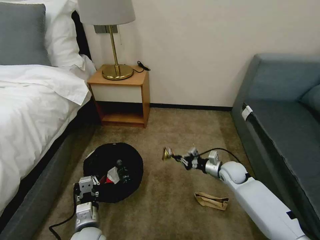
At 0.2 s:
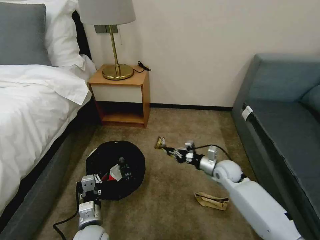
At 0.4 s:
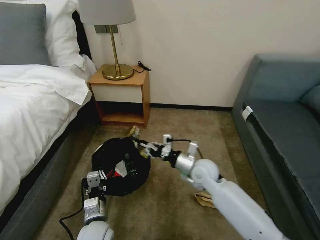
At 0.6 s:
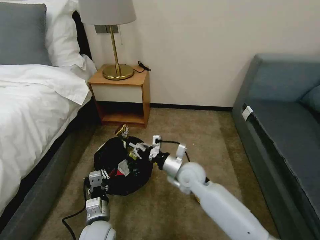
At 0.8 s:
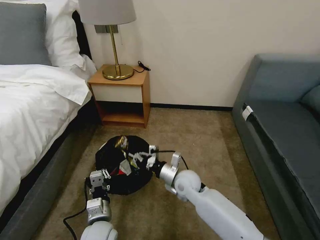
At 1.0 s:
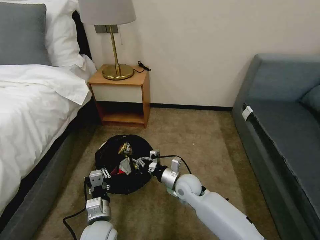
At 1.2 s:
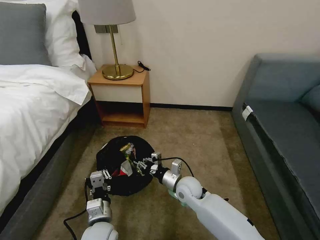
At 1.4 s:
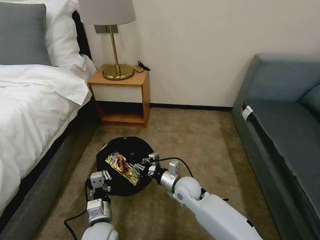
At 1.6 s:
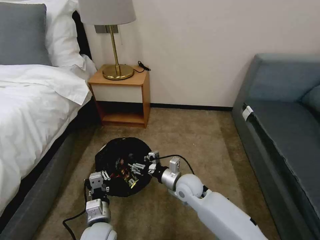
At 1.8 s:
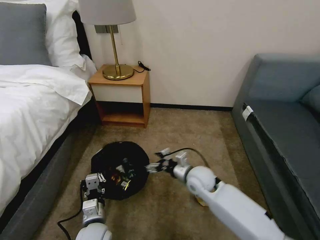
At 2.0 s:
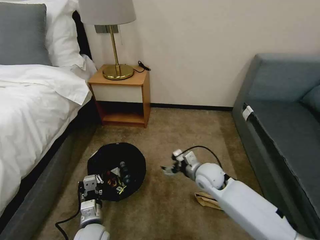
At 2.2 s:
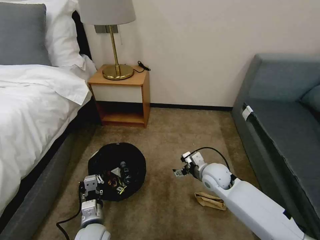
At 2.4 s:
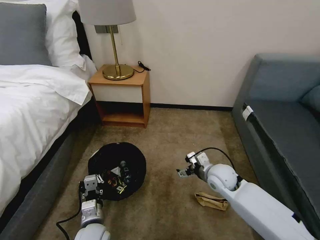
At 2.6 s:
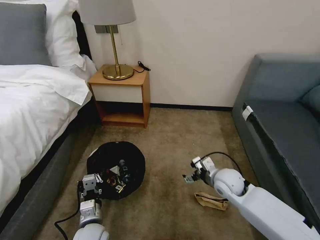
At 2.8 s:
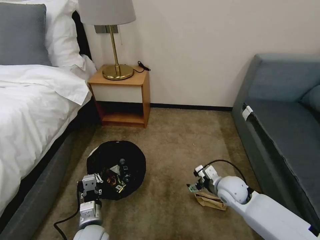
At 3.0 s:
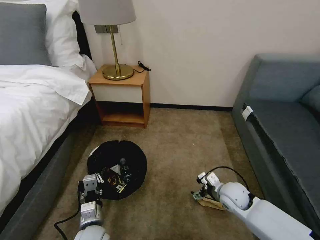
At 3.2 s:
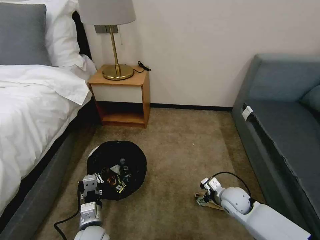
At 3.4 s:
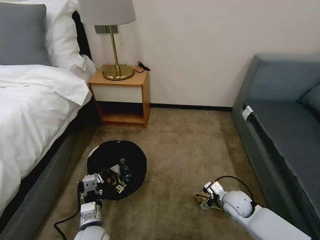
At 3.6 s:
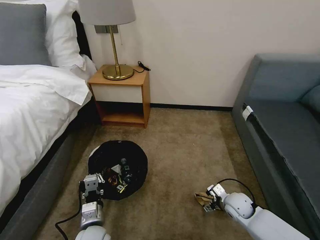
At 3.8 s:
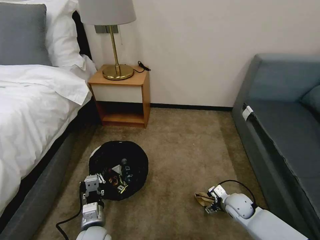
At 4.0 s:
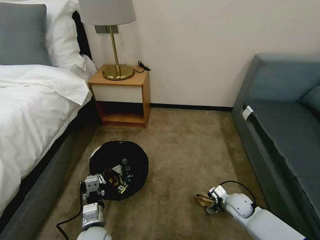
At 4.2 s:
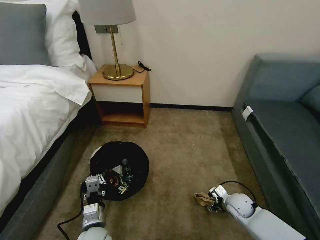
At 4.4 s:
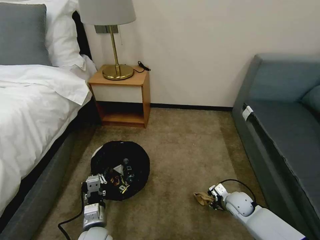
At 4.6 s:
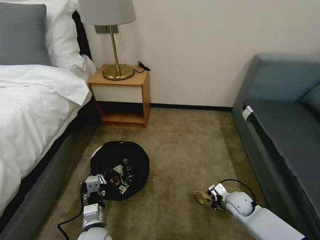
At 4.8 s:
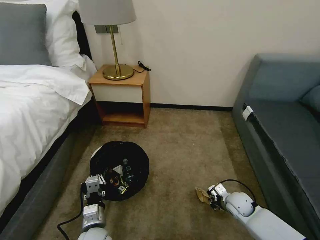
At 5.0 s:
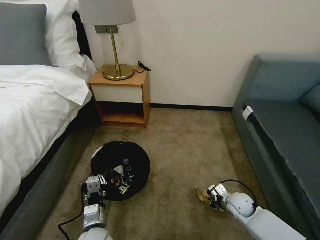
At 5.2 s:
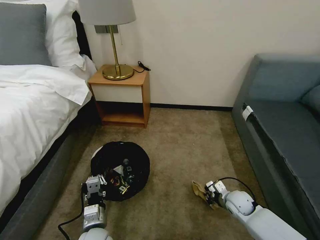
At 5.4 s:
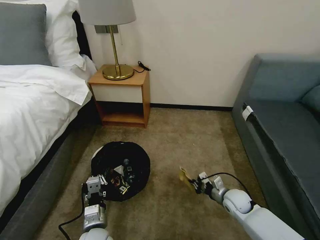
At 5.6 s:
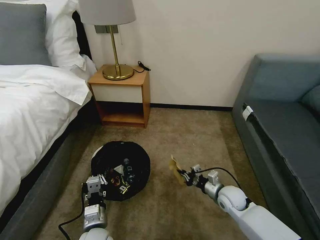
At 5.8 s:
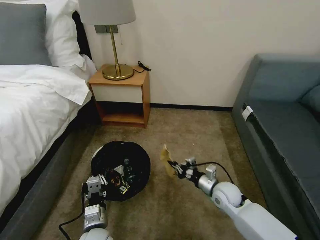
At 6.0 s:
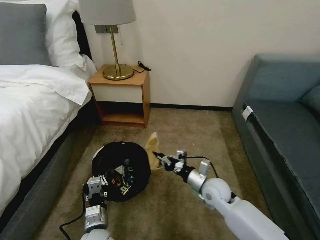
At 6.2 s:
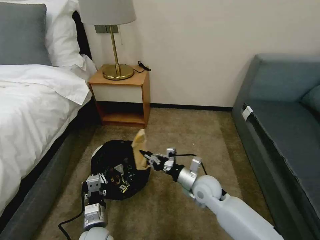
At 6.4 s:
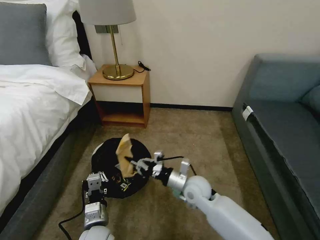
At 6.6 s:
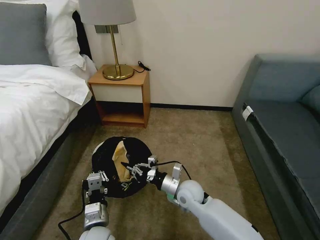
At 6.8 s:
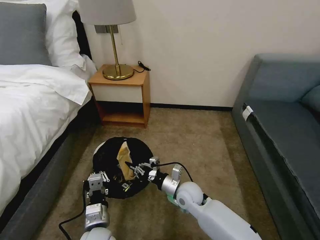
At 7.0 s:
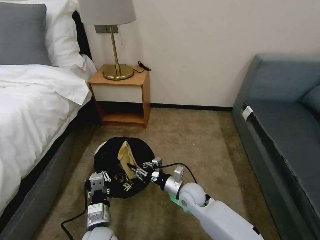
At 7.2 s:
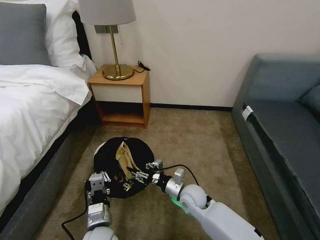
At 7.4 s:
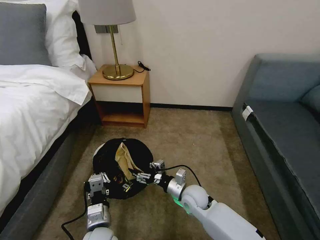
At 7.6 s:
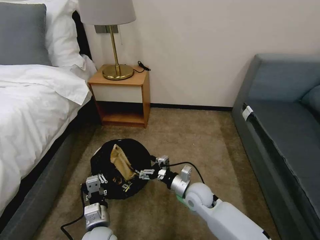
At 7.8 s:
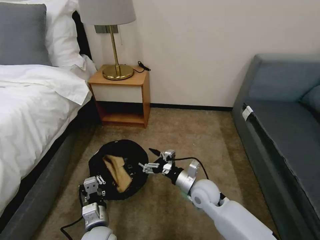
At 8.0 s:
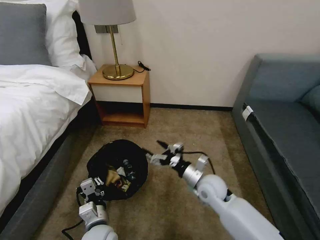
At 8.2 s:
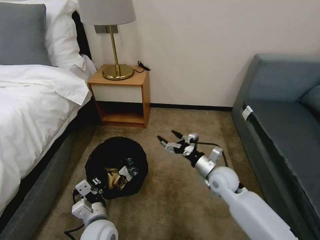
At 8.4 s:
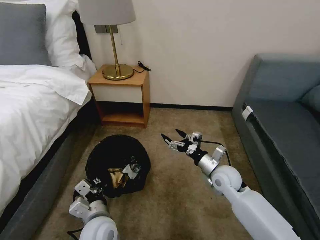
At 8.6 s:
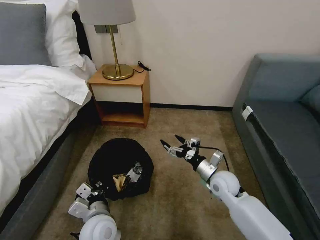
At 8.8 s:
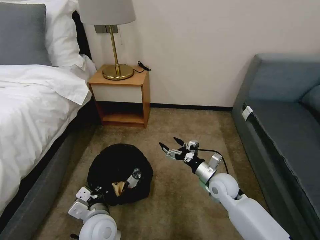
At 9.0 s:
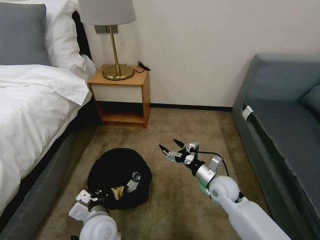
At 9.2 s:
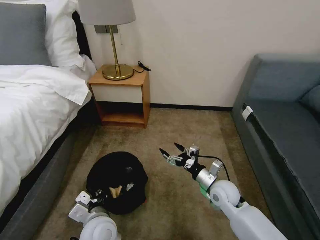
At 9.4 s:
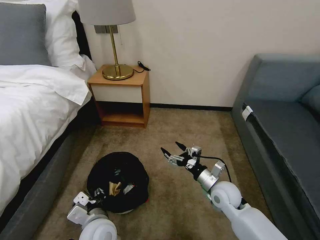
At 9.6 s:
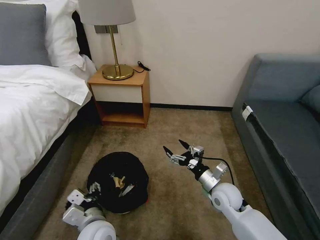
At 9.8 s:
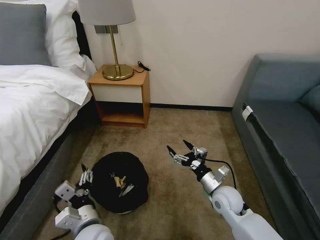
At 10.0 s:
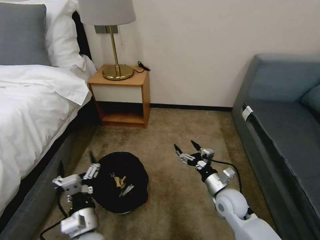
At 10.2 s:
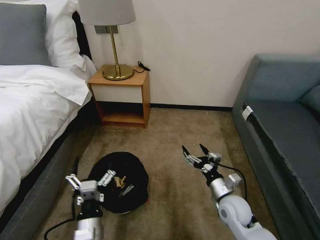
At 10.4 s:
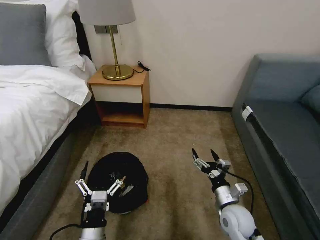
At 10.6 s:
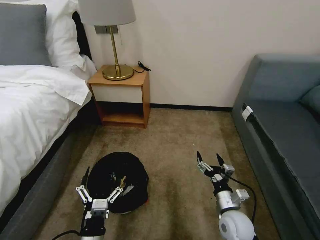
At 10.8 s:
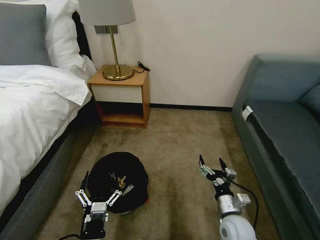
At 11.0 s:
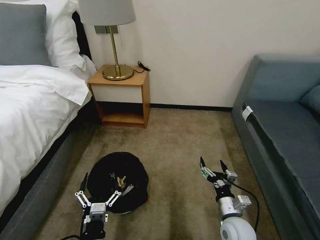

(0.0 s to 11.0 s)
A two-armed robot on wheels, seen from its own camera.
Task of the whole recording: Pick up the trash bin, then pick up the garbage on the floor and place it into the trash bin.
0.0 s - 1.6 s: The right gripper goes roughly 20 cm to the left, and opens its fingers.
1.6 s - 3.2 s: The right gripper travels to the right by some 20 cm, and opens.
3.2 s - 4.8 s: The right gripper heads downward, covering about 5 cm, and closes up.
4.8 s - 6.2 s: The right gripper travels to the left and upward by about 15 cm.
6.2 s - 7.8 s: The right gripper opens.
7.8 s - 9.4 s: The right gripper is displaced to the right by about 10 cm, while the left gripper shifts roughly 5 cm upward, and opens.
9.4 s - 11.0 s: The left gripper is displaced backward and downward by some 10 cm, and opens its fingers, while the right gripper shifts roughly 10 cm backward.

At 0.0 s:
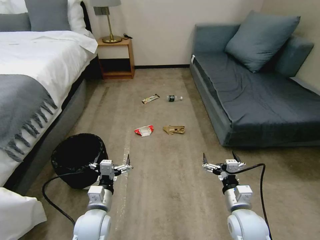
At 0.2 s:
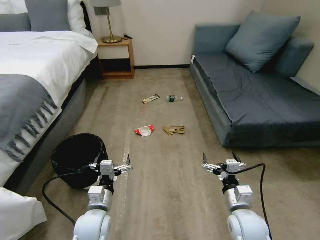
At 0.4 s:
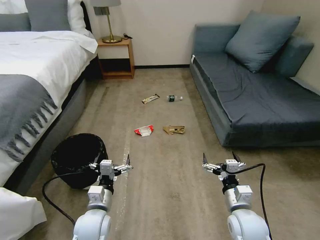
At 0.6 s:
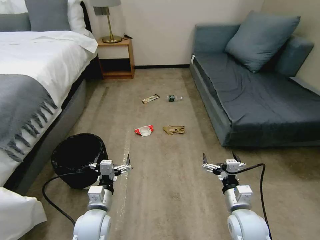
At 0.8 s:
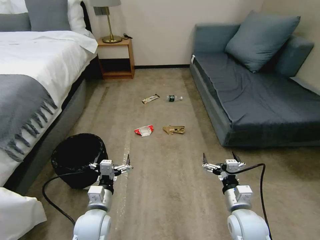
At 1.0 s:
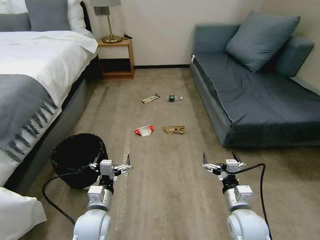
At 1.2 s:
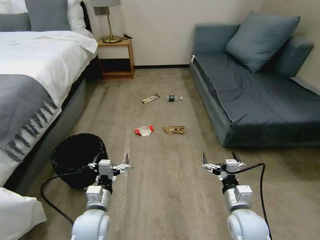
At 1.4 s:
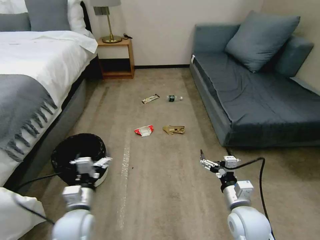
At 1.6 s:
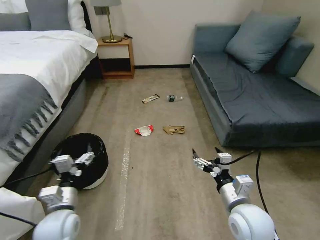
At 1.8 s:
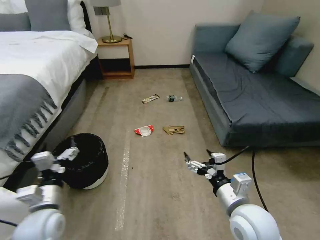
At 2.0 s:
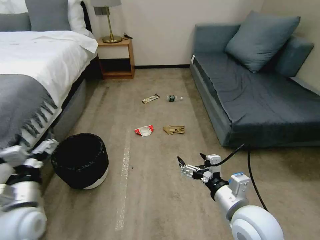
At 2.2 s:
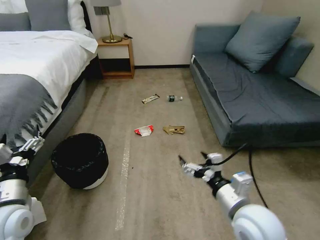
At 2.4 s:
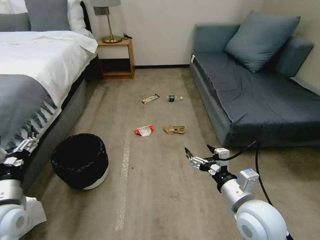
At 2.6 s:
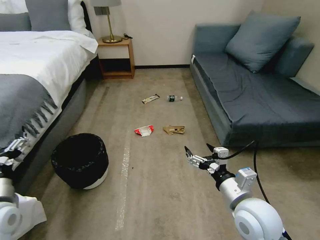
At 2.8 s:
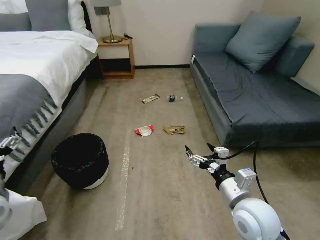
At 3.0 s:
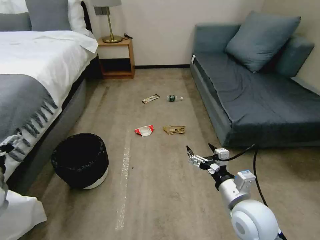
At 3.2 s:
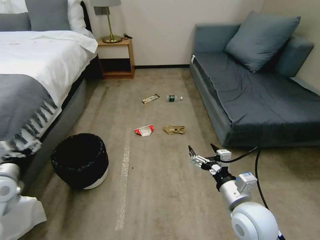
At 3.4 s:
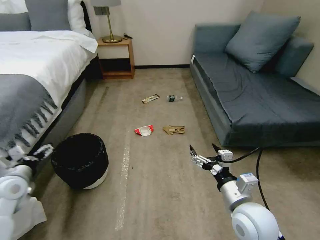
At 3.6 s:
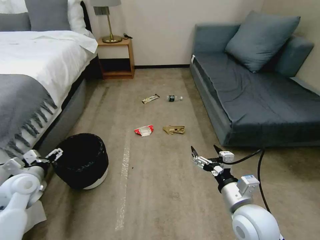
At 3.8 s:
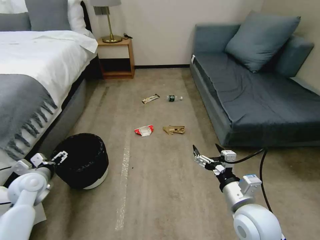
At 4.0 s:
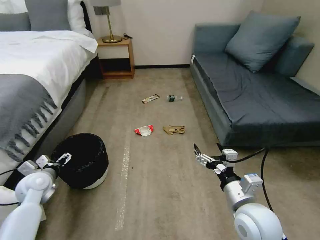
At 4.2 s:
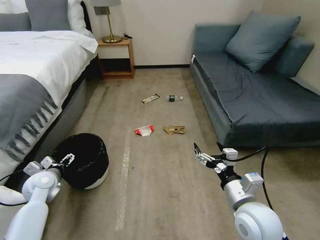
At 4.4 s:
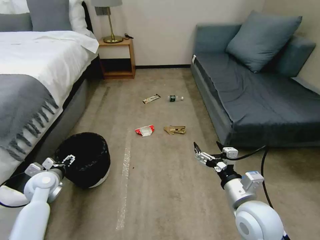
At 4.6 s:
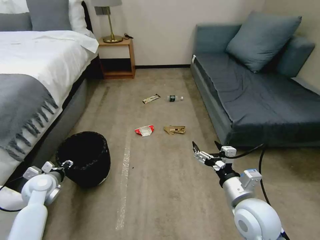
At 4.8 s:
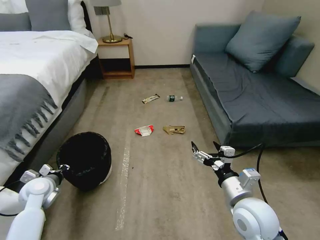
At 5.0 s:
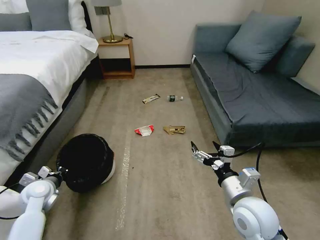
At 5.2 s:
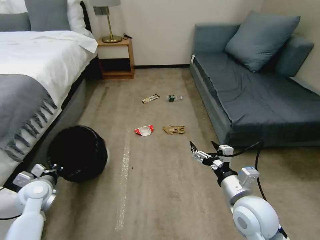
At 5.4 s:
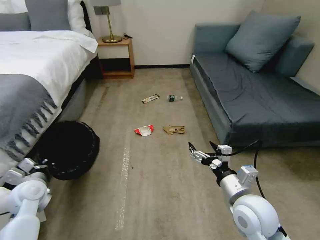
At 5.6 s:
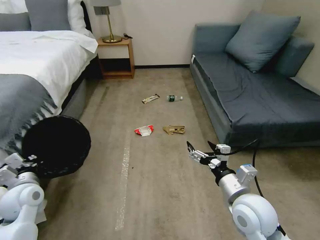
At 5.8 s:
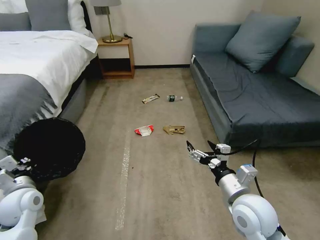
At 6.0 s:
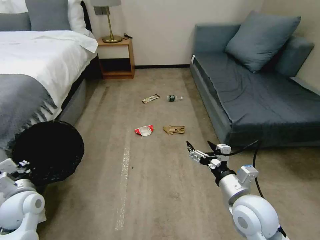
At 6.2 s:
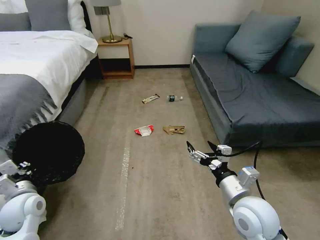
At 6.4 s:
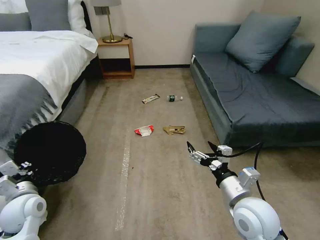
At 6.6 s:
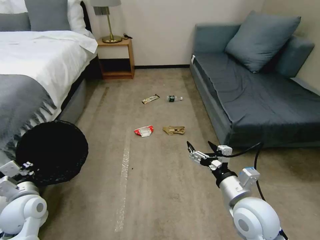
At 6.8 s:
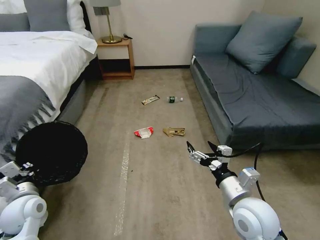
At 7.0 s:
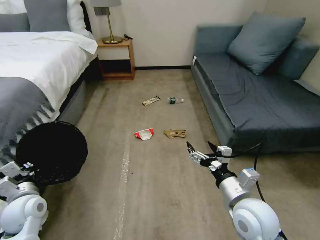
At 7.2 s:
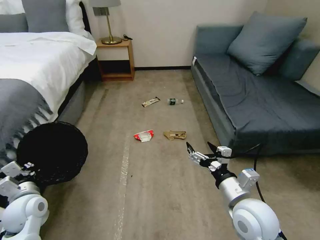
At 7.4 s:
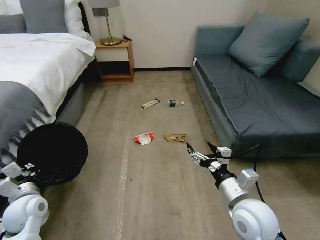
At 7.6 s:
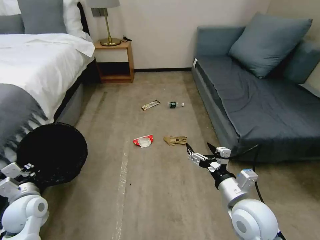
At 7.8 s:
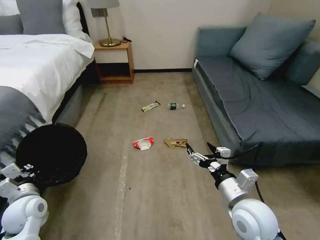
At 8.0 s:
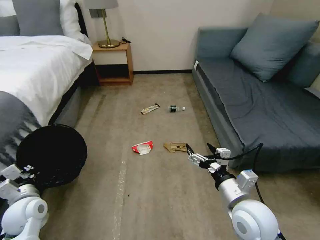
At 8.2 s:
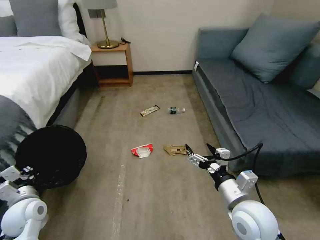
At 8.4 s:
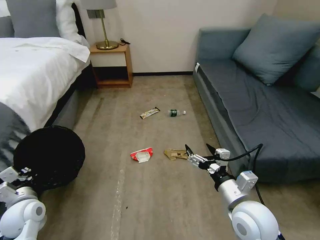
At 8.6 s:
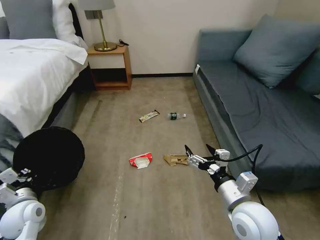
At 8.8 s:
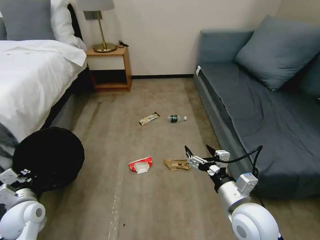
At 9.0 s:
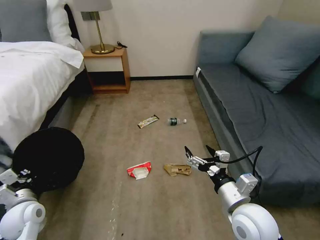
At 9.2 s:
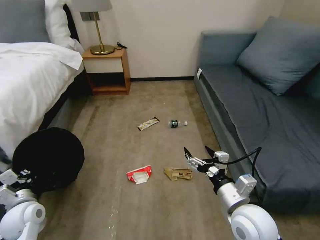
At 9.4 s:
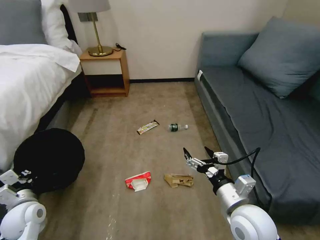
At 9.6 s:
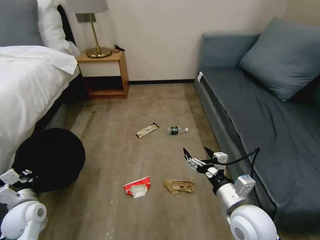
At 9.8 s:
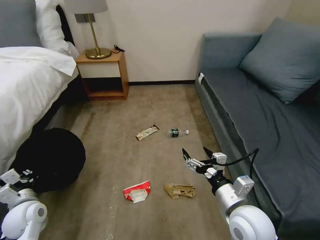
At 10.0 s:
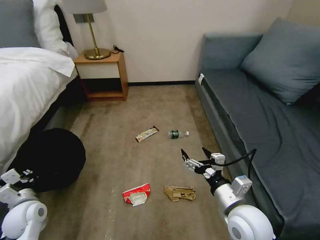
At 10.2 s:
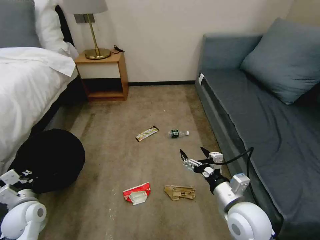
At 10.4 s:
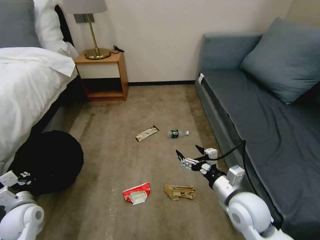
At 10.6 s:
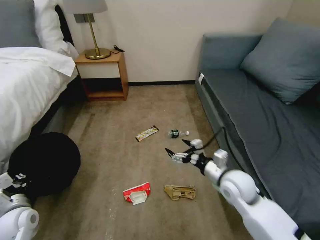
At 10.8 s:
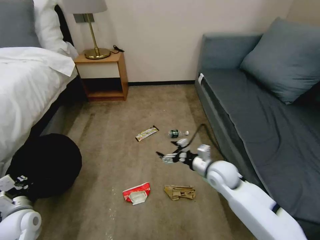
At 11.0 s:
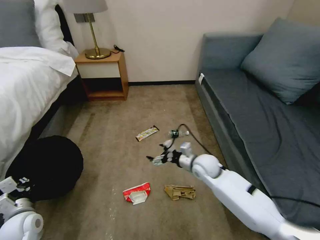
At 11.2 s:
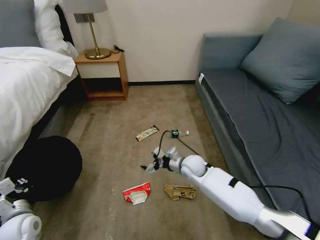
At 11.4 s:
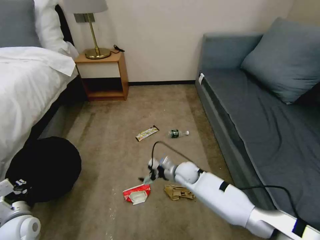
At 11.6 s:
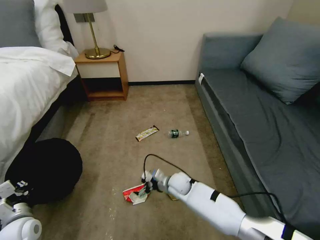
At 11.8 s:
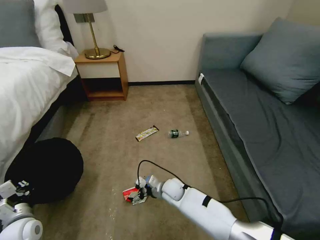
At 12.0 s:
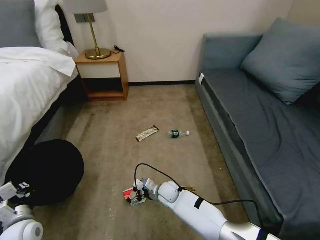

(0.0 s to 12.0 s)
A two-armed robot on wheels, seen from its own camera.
Task of the whole recording: Pick up the trash bin, then pick up the garbage on the floor and place it into the trash bin.
1.6 s - 3.0 s: The left gripper is displaced to the left and upward by some 20 cm.
3.0 s - 4.4 s: The left gripper goes about 15 cm downward and forward.
4.4 s - 6.0 s: The left gripper heads backward, covering approximately 10 cm, and closes its fingers.
10.4 s - 12.0 s: The right gripper heads downward, to the left and forward, covering some 30 cm.
